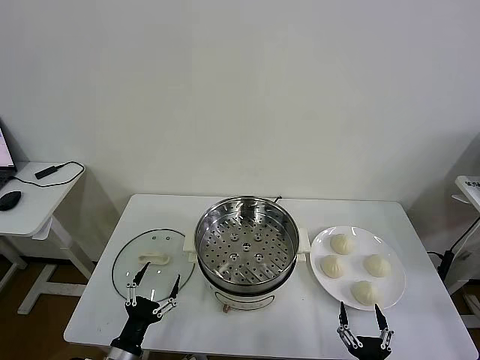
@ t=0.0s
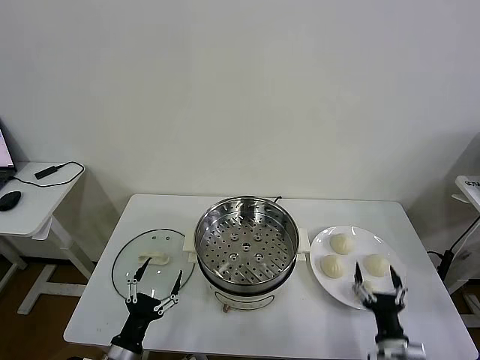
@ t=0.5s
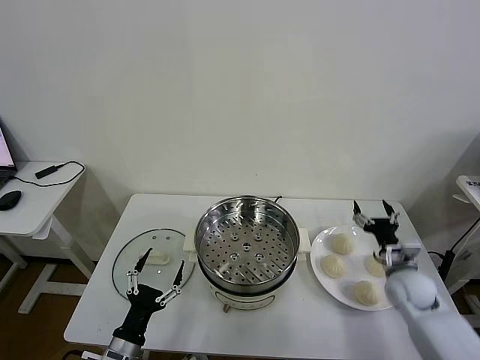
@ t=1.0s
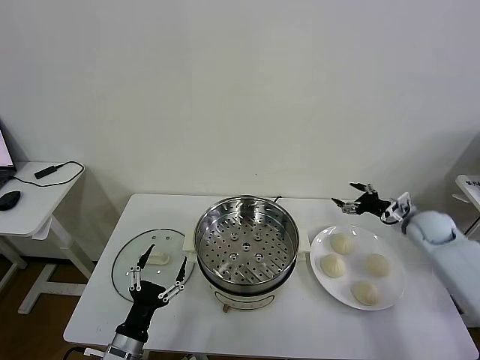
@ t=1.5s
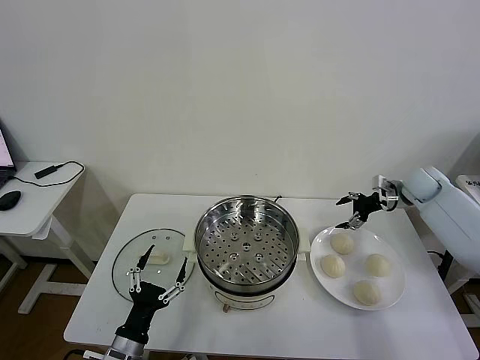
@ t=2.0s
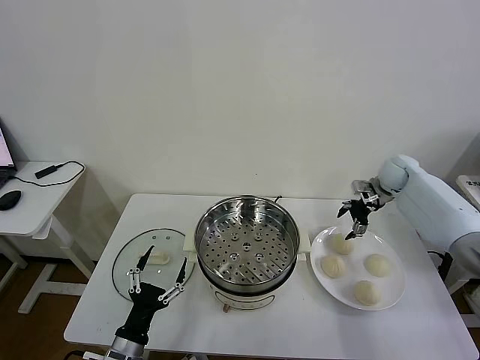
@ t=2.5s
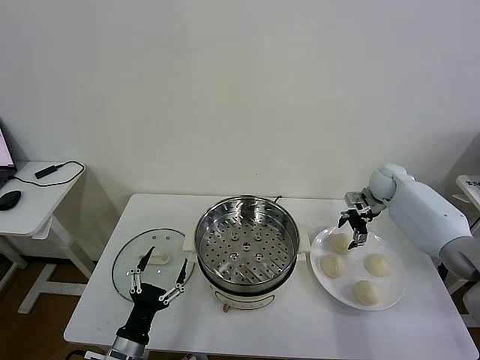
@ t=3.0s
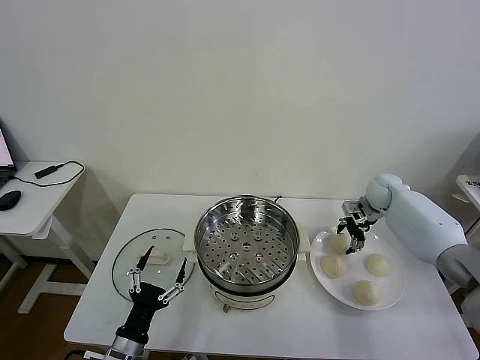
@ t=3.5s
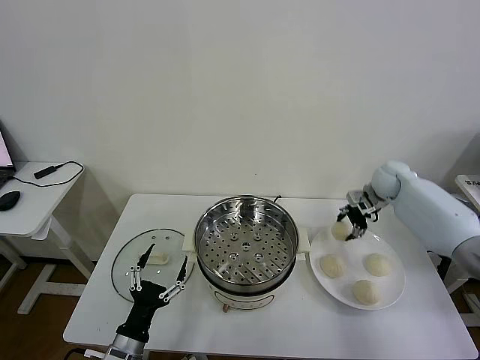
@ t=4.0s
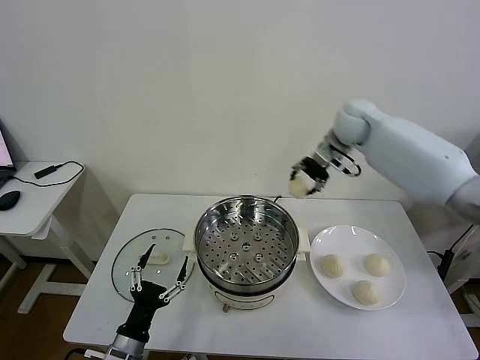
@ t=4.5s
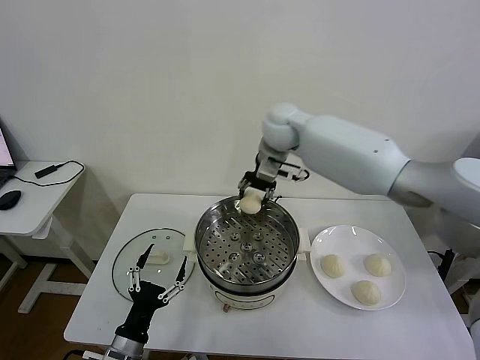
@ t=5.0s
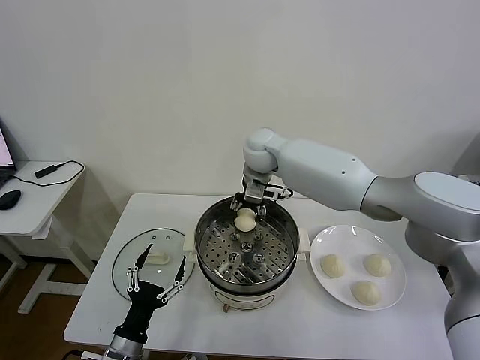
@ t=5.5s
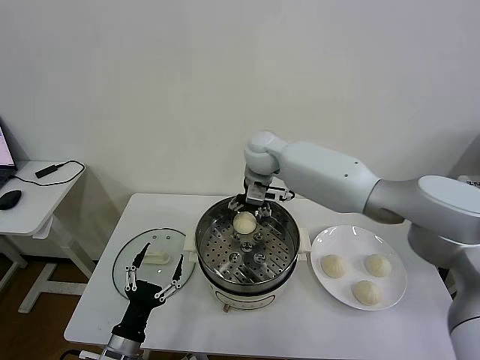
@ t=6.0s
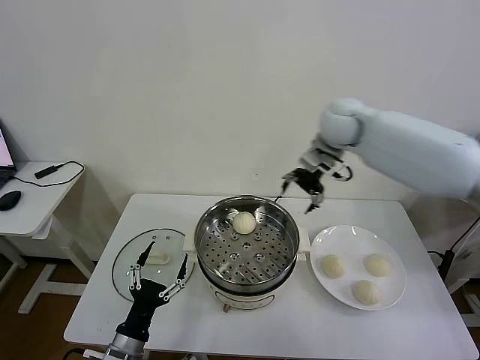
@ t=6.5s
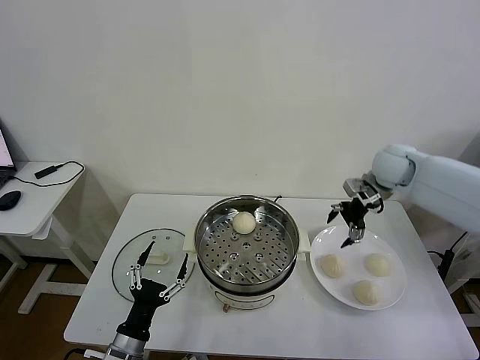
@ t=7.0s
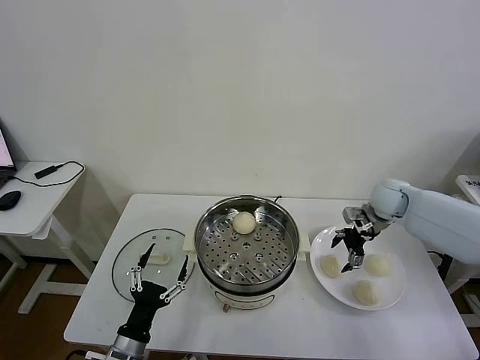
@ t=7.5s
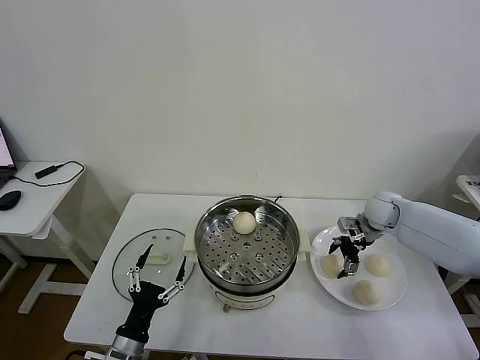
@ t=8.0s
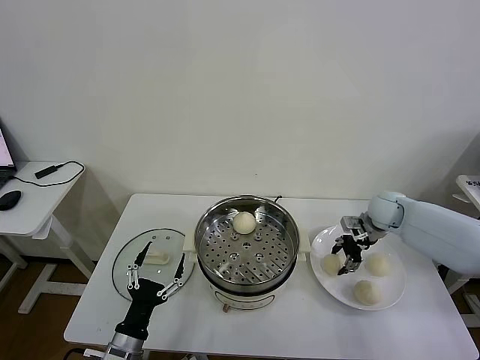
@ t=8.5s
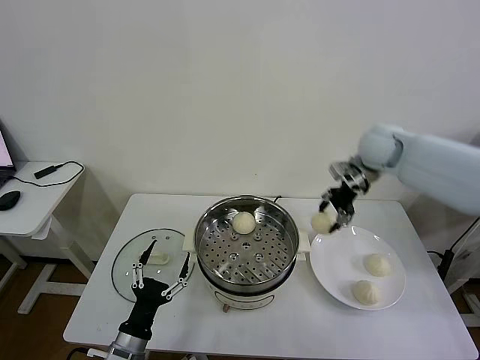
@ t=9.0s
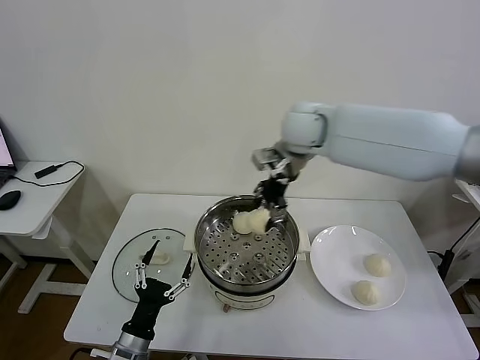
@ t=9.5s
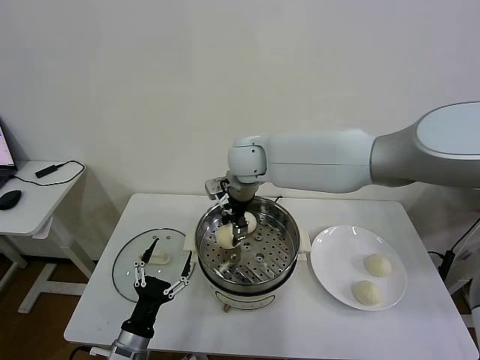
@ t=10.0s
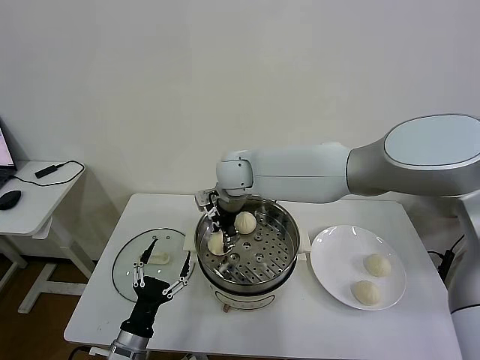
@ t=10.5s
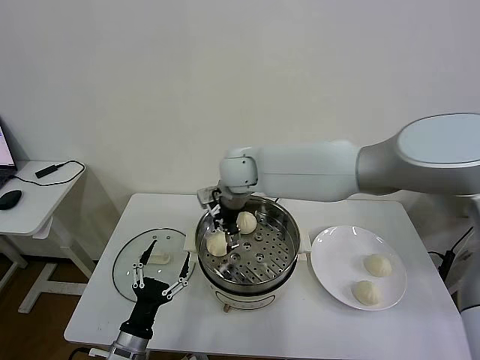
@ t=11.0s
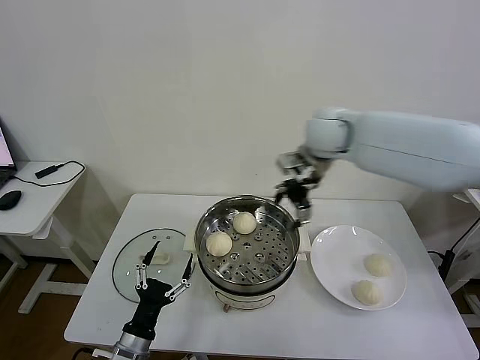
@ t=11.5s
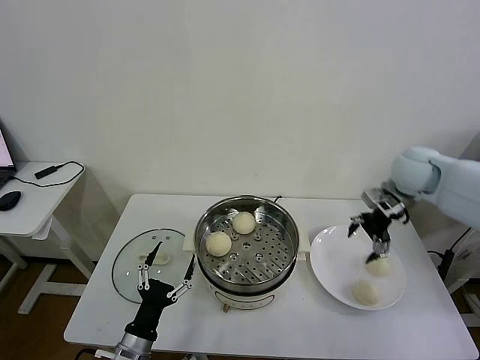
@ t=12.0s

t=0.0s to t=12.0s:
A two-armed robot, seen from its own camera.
Task of the whole recording: take steamed baozi put them in steamer then cover it.
Step, t=0.0s to t=3.5s: Grasp the baozi in the plate with right gripper.
Step, t=4.0s to t=5.5s: Place the baozi on the steamer with right gripper.
Step, t=6.0s to t=8.0s: Grasp the baozi in the plate with right gripper.
Step, t=8.5s to t=10.5s: Place the baozi on the steamer with right gripper.
t=2.0s to t=4.0s: The right gripper goes roughly 5 cm to the left, goes downward and returns, roughly 5 cm each way, and closes up.
t=4.0s to t=6.0s: The right gripper heads to the left, covering roughly 30 cm, and opens.
t=6.0s to t=8.0s: The right gripper goes about 35 cm to the right and downward.
t=8.0s to t=10.0s: The right gripper shifts about 40 cm to the left and upward, and closes up.
t=10.0s to t=12.0s: The right gripper goes roughly 35 cm to the right, and opens.

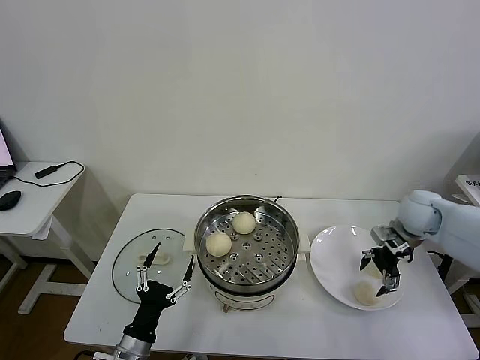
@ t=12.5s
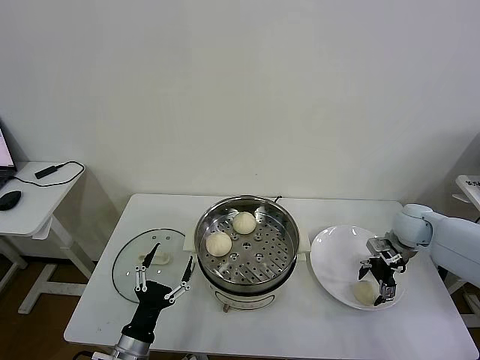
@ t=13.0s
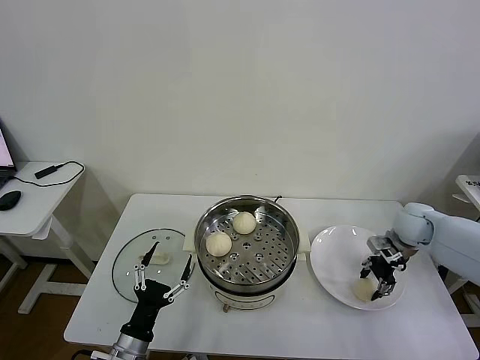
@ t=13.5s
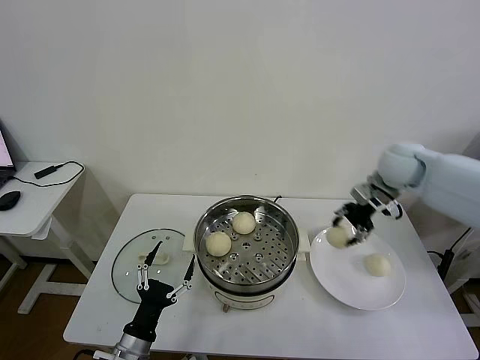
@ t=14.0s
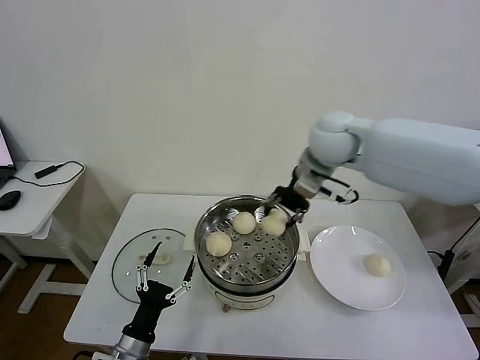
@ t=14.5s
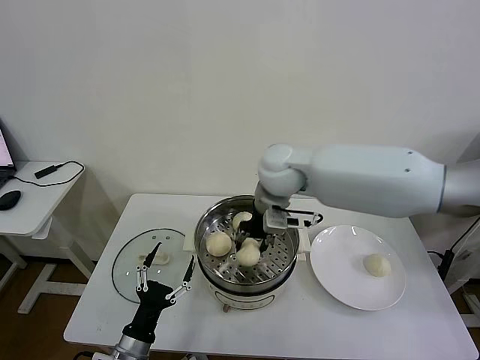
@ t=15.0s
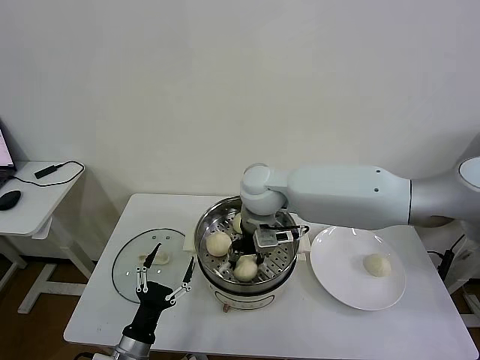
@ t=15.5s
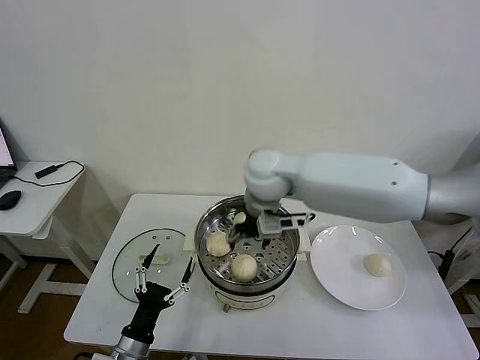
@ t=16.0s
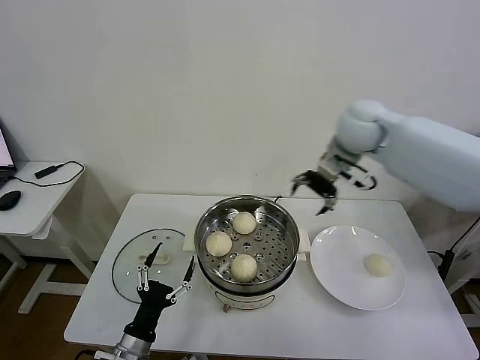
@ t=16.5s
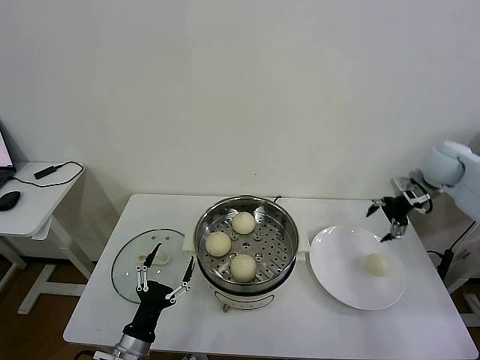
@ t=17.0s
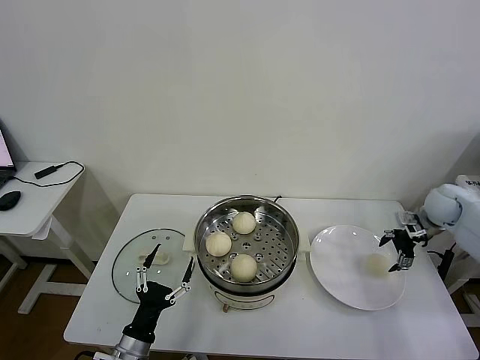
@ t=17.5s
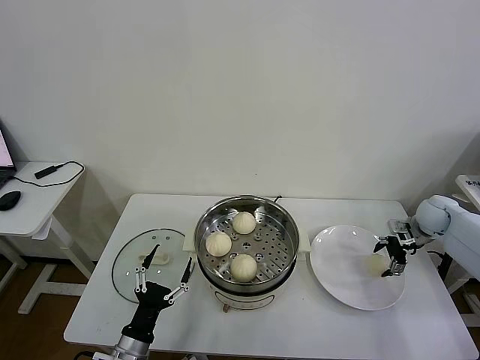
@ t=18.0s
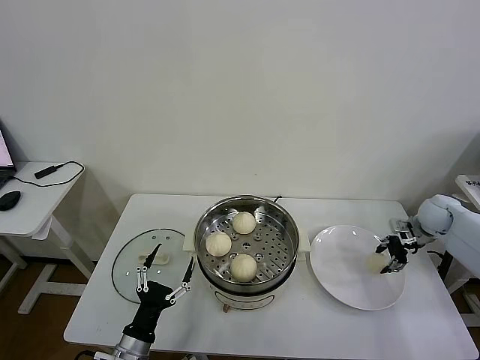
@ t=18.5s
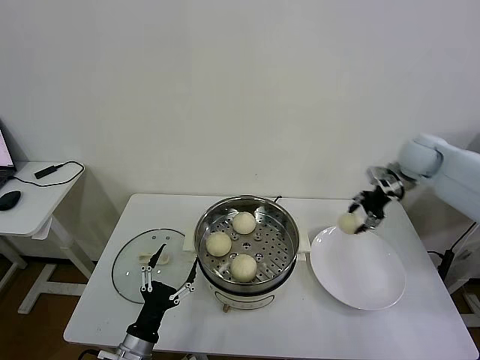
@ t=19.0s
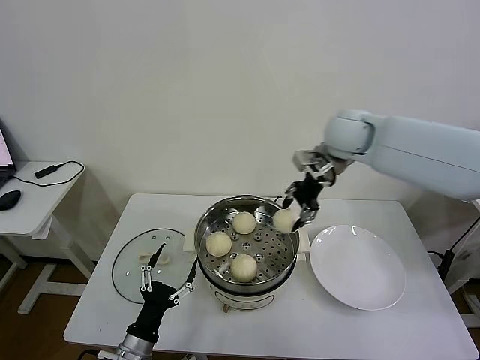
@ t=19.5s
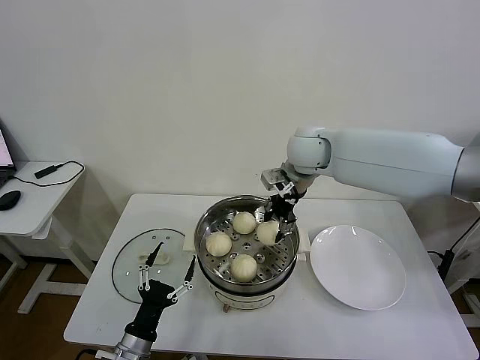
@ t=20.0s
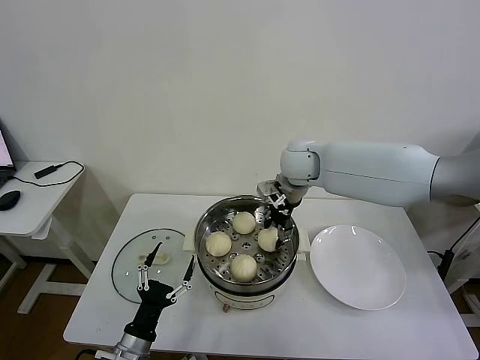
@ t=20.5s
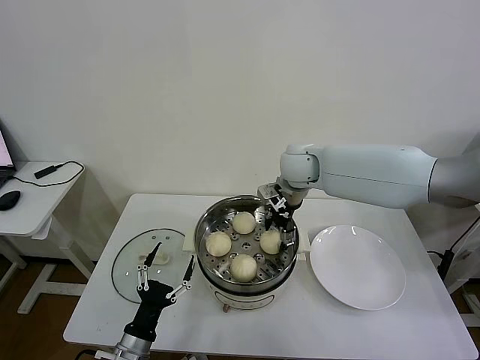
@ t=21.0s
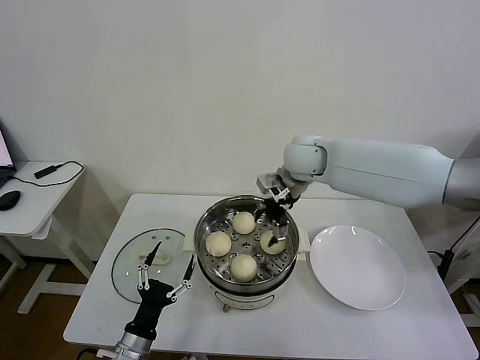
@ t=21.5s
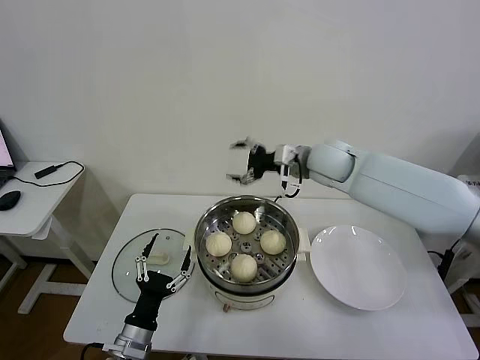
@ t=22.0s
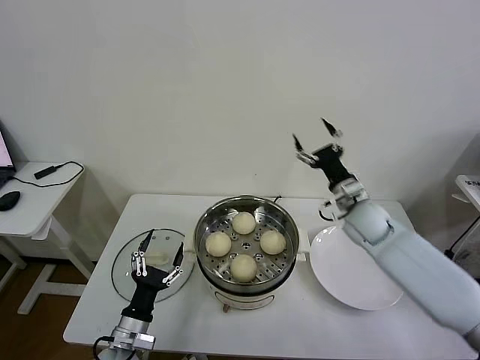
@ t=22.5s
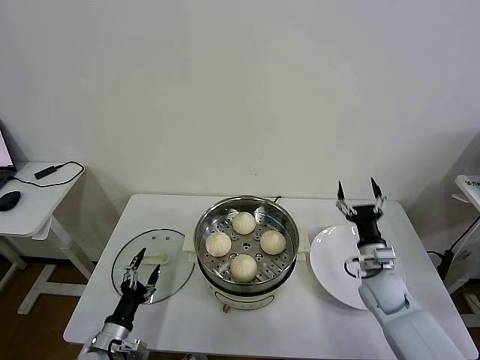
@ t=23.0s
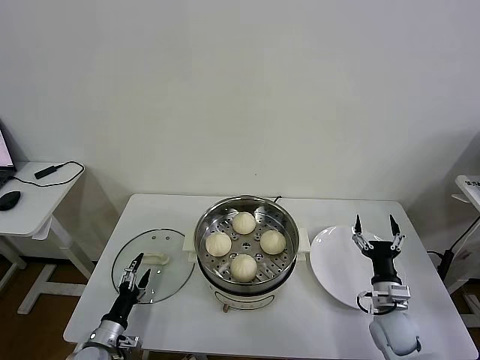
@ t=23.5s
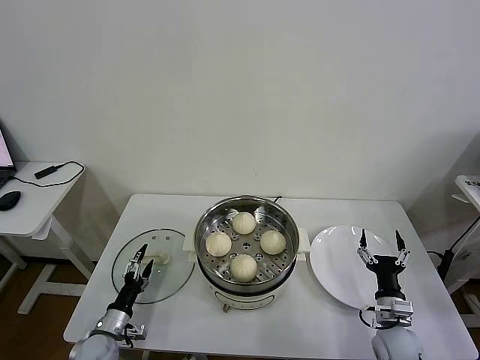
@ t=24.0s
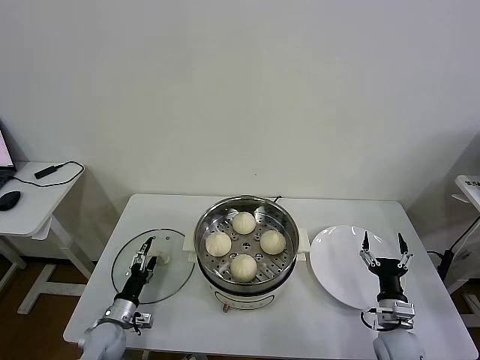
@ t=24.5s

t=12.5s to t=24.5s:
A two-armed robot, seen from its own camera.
Task of the whole recording: take steamed baozi put them in steamer then cover it.
Step, t=13.5s to t=15.5s: Place the baozi on the steamer with right gripper.
Step, t=16.0s to t=18.0s: Grasp the baozi in the plate with right gripper.
Step, t=18.5s to t=21.0s: Place the baozi on the steamer with right gripper.
t=12.5s to t=14.5s: The right gripper is displaced to the left and upward by approximately 30 cm, and closes.
t=14.5s to t=16.5s: The right gripper travels to the right by roughly 10 cm, and opens up.
t=16.5s to t=18.5s: The right gripper goes approximately 30 cm to the right and downward, and closes.
t=18.5s to t=20.5s: The right gripper goes roughly 35 cm to the left.
t=20.5s to t=22.5s: The right gripper moves to the right, downward and backward, about 20 cm, and opens.
t=22.5s to t=24.5s: The left gripper travels downward, to the left and forward by roughly 15 cm. Meanwhile the right gripper heads backward and downward, covering approximately 30 cm.

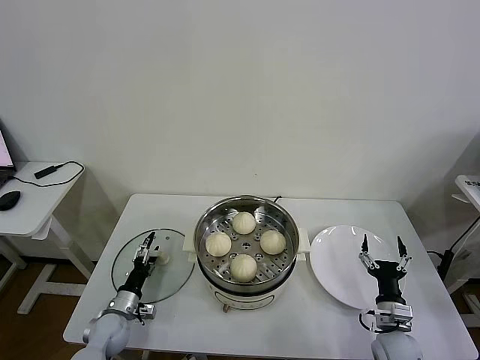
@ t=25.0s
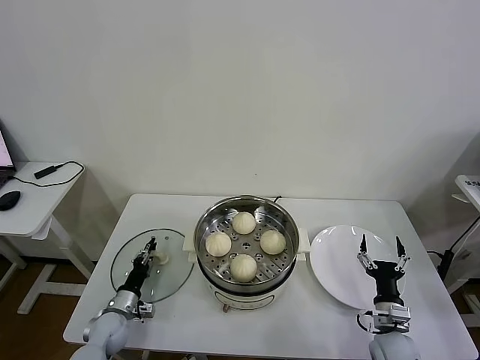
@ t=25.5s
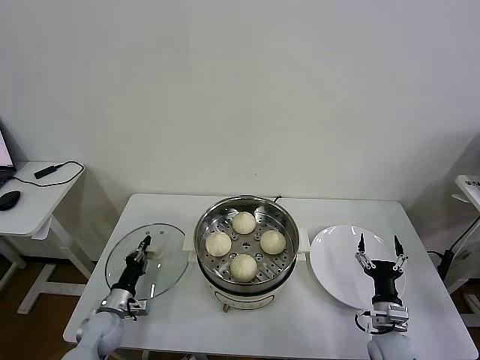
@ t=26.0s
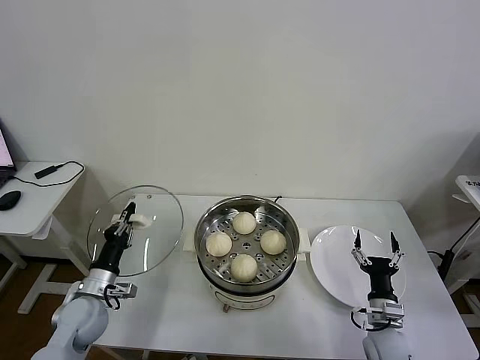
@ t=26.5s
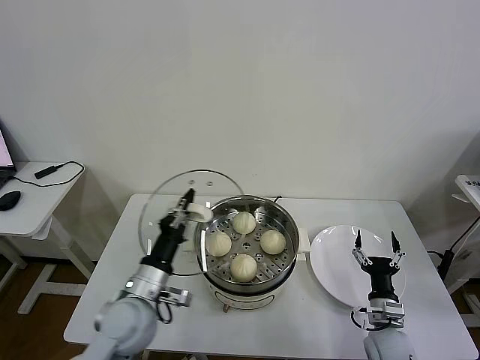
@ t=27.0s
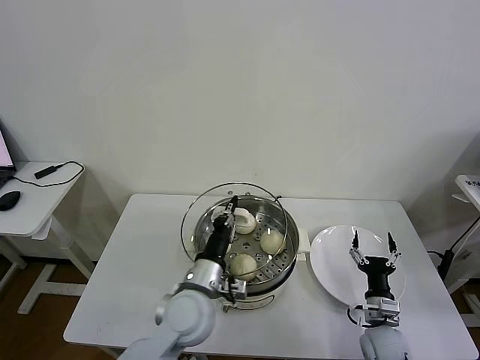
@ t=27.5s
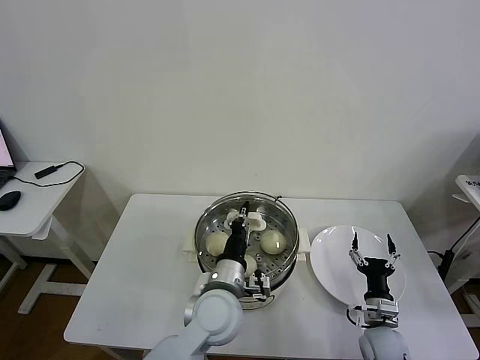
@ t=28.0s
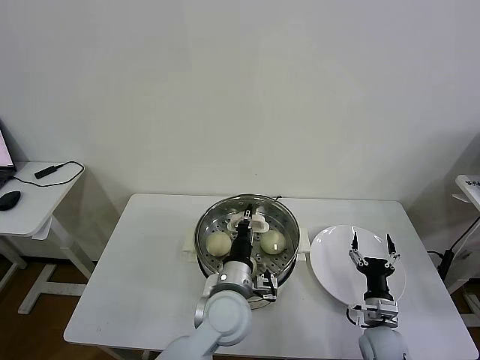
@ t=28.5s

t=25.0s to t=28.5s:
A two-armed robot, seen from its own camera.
Task of the whole recording: take steamed baozi put them in steamer then cover it.
t=25.0s to t=27.0s: The left gripper moves upward and to the right, roughly 25 cm, and closes.
t=27.0s to t=28.5s: The left gripper moves to the right, roughly 20 cm.
